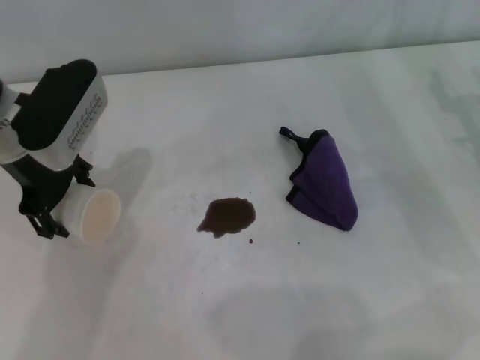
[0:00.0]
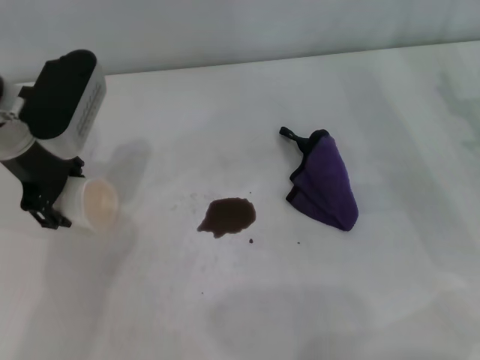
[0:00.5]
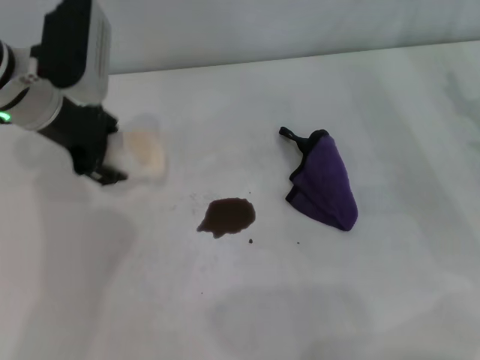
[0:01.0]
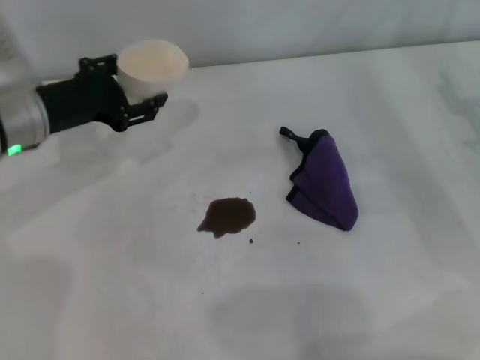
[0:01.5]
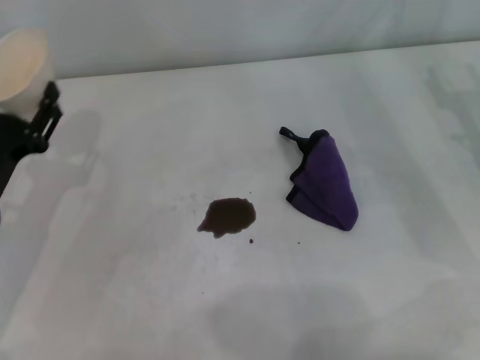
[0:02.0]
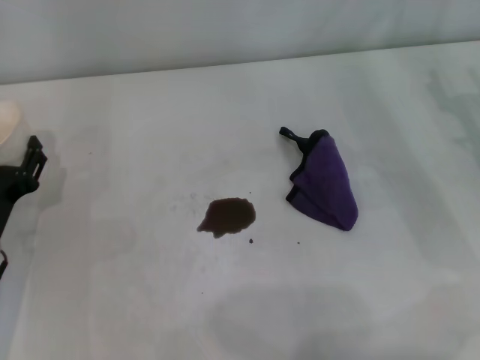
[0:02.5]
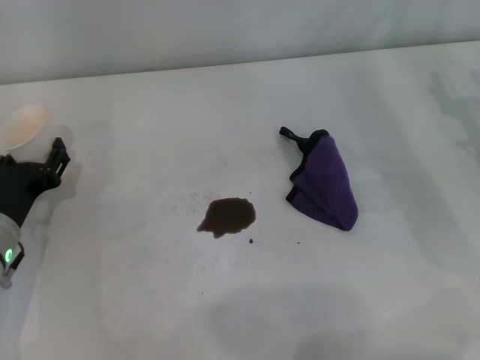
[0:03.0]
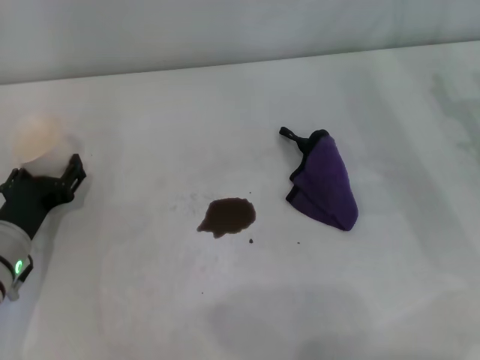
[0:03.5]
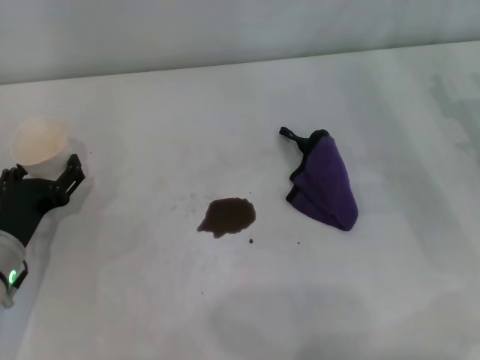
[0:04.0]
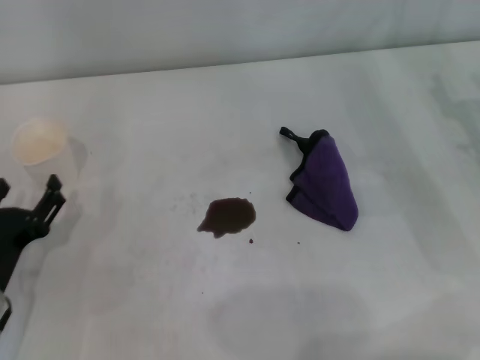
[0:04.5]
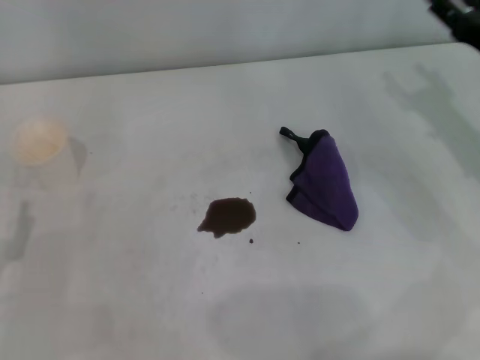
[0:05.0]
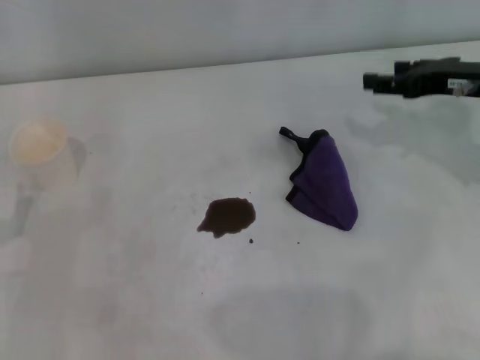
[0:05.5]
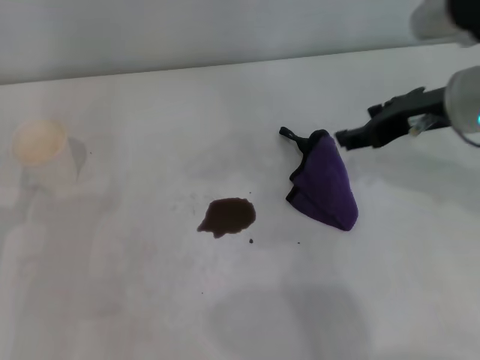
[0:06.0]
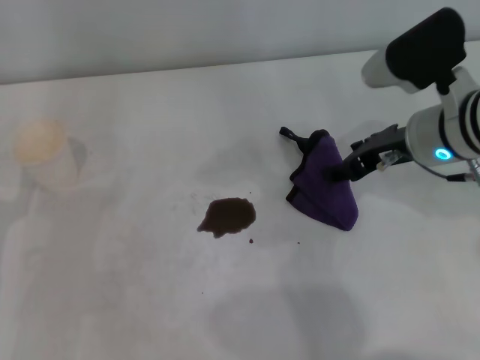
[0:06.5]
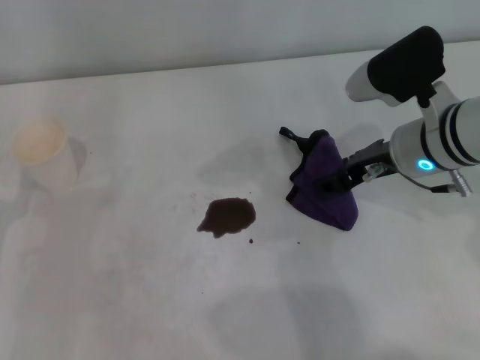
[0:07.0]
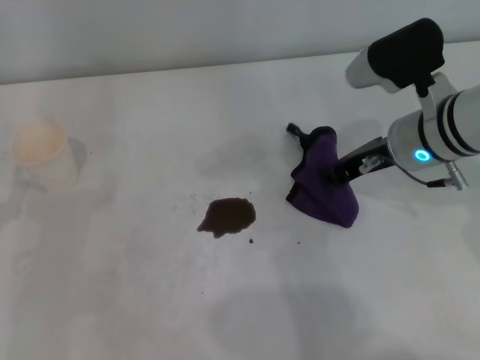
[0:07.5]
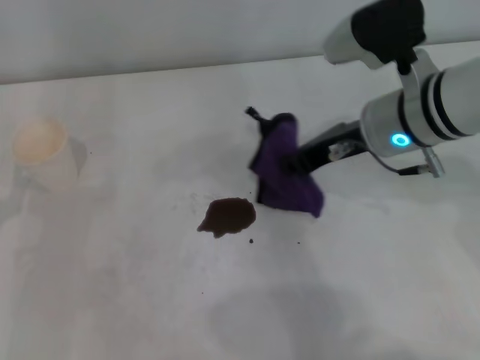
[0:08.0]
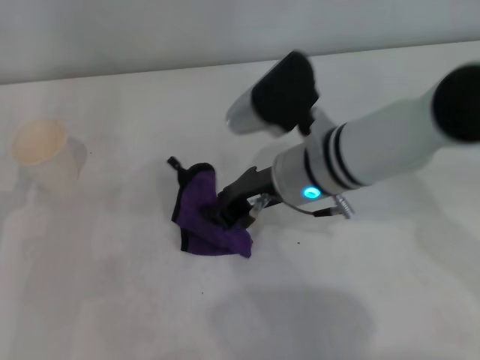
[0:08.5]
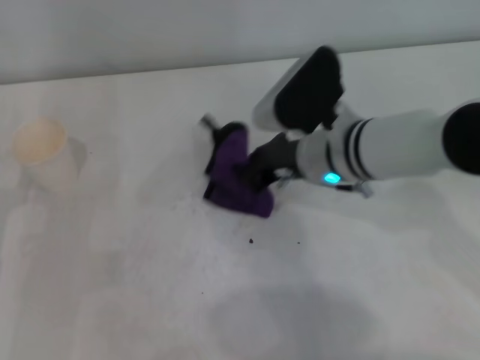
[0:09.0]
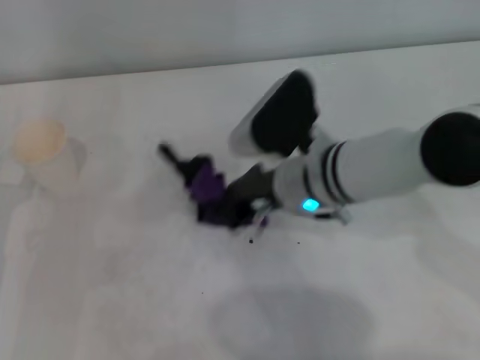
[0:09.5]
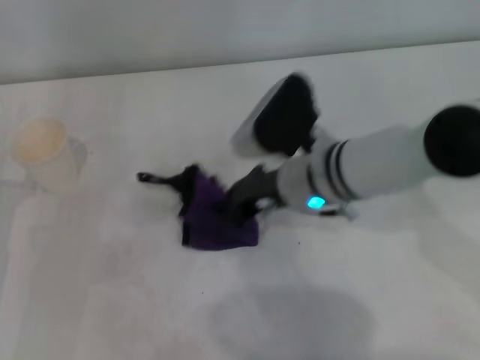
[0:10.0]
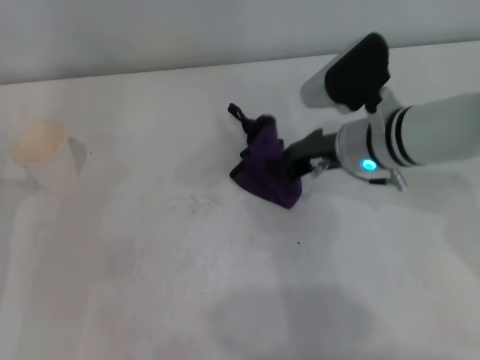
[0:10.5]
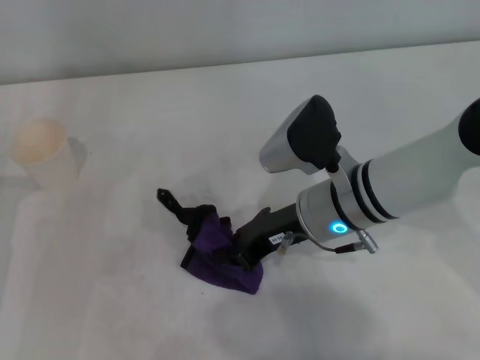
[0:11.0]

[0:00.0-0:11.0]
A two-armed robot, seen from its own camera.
Step, 0:00.5 to 0:03.5: Stand the paper cup upright with the left gripper.
Step, 0:04.5 to 0:07.0: Grasp the rag with the right gripper.
0:00.0 to 0:02.0: The left gripper is displaced backward, downward and to the left by some 15 cm, and closes its fingers.
0:03.5 to 0:05.5: The right gripper heads upward, covering some 5 cm, while the left gripper heads backward and to the left, covering some 10 cm, and opens up.
0:05.5 to 0:07.5: The right gripper travels to the left by about 10 cm, and closes.
0:07.5 to 0:09.0: The right gripper is displaced to the left by about 10 cm.

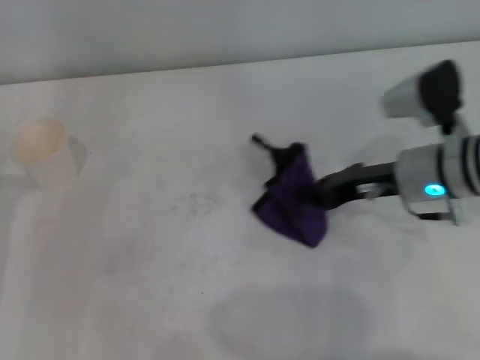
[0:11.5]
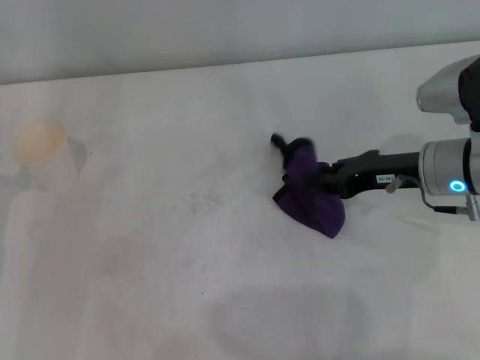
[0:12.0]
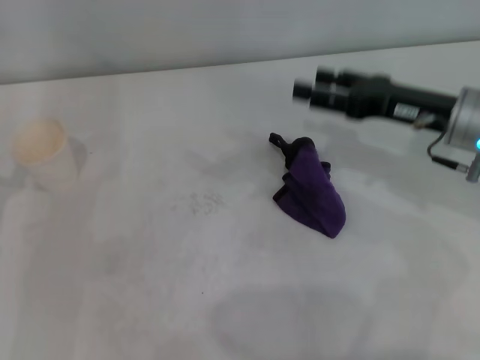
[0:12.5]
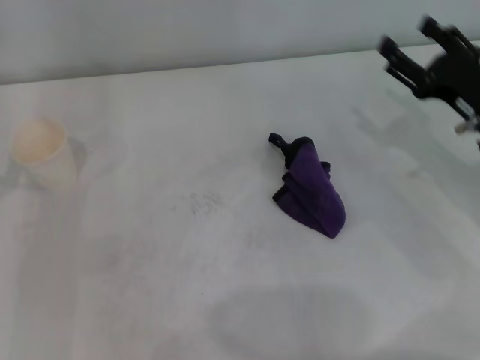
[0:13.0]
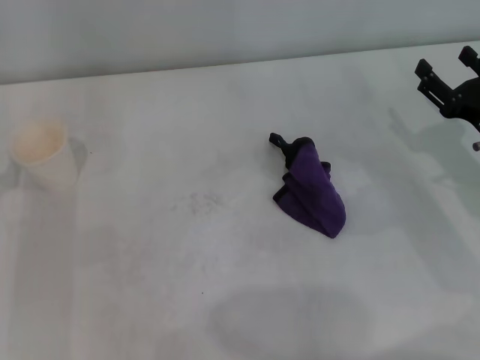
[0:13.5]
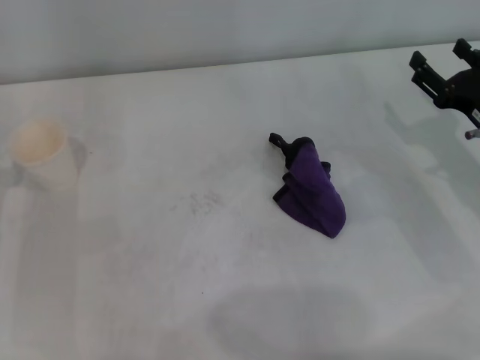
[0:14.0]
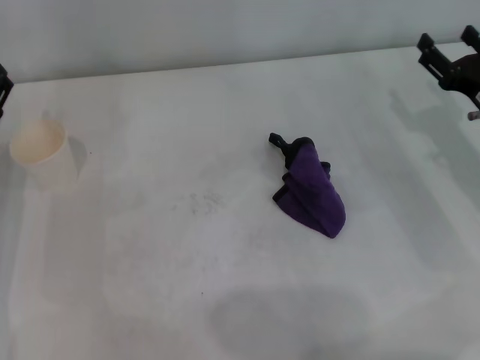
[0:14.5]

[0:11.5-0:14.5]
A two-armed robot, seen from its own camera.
Step, 0:11.5 to 0:12.0: Place the rag on the table with the right gripper.
0:11.5 to 0:13.0: The right gripper goes about 10 cm to the right, and opens up.
